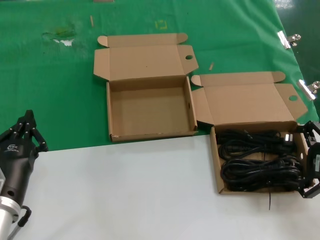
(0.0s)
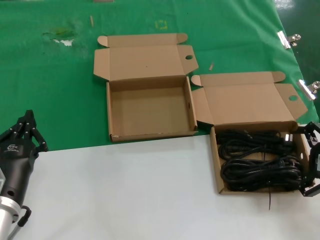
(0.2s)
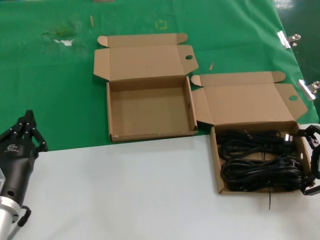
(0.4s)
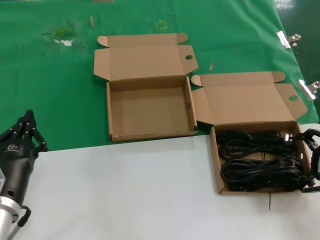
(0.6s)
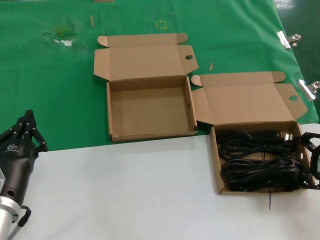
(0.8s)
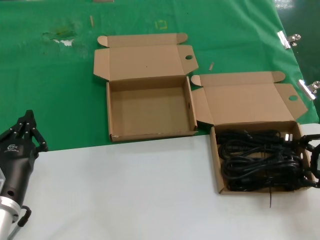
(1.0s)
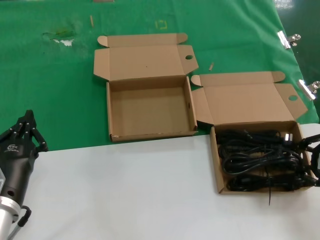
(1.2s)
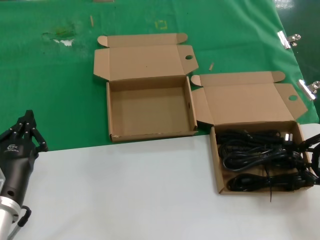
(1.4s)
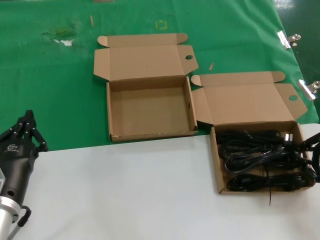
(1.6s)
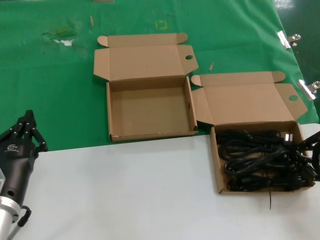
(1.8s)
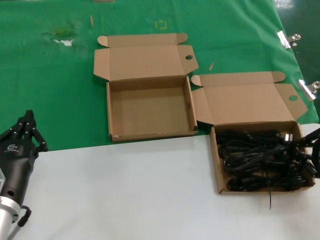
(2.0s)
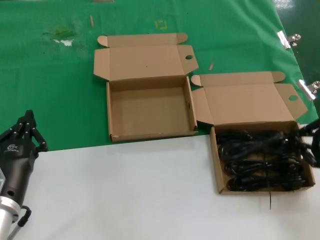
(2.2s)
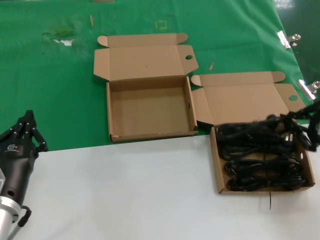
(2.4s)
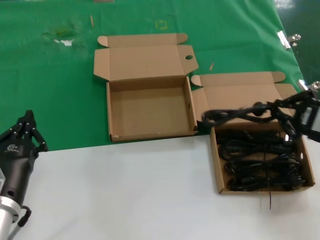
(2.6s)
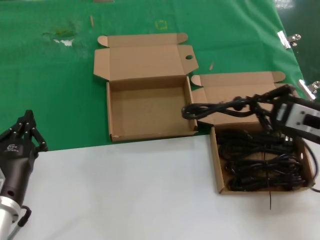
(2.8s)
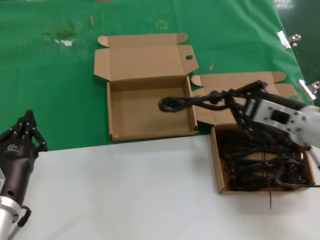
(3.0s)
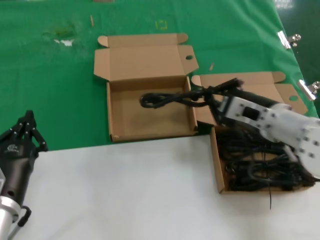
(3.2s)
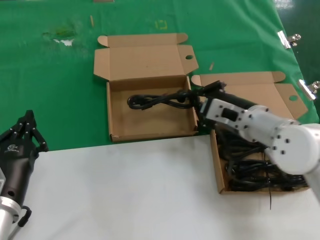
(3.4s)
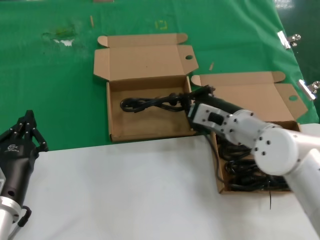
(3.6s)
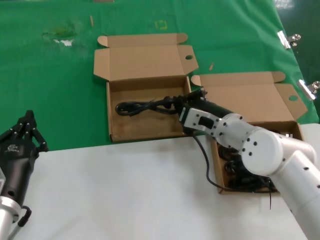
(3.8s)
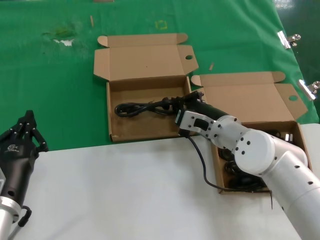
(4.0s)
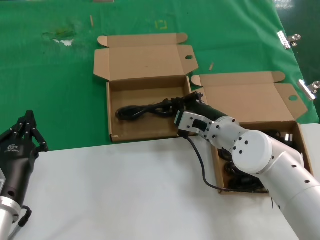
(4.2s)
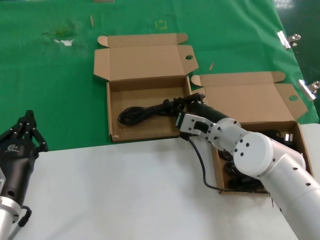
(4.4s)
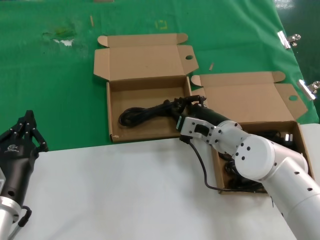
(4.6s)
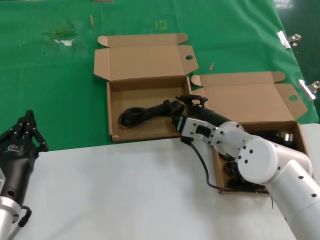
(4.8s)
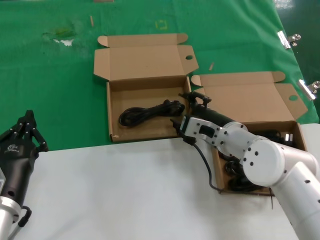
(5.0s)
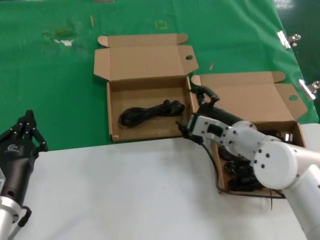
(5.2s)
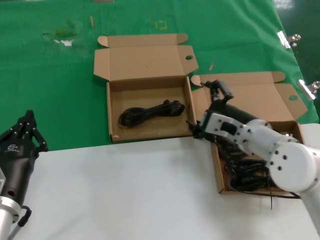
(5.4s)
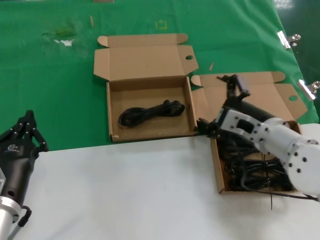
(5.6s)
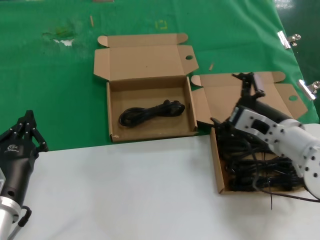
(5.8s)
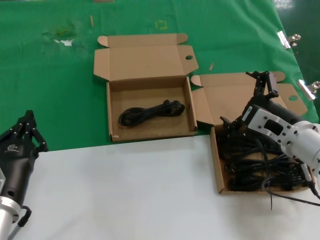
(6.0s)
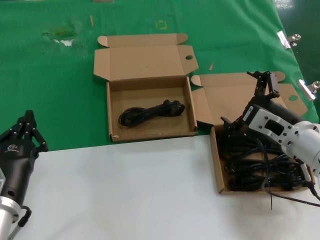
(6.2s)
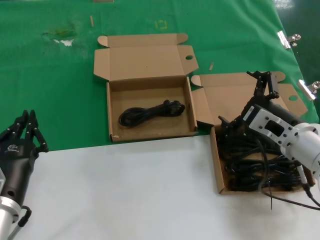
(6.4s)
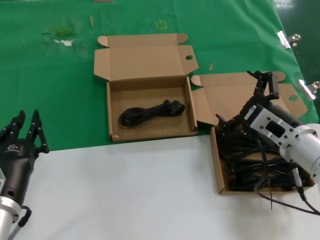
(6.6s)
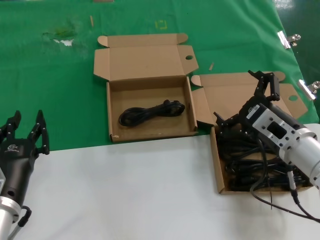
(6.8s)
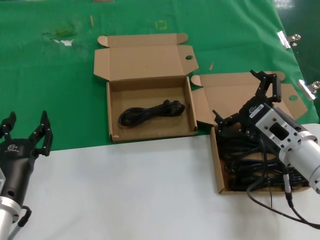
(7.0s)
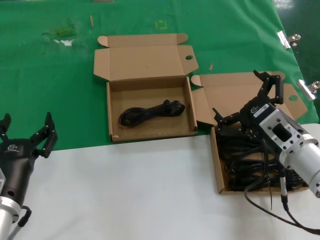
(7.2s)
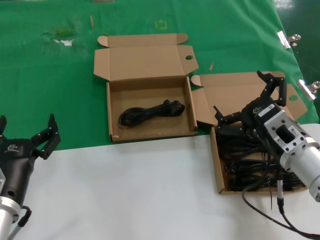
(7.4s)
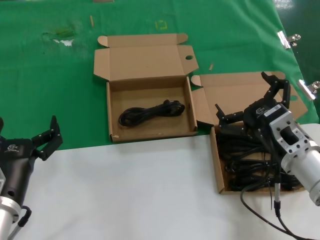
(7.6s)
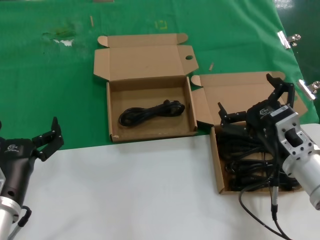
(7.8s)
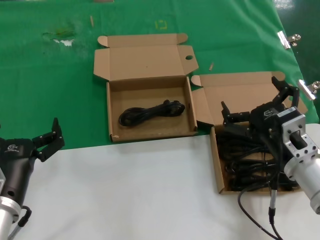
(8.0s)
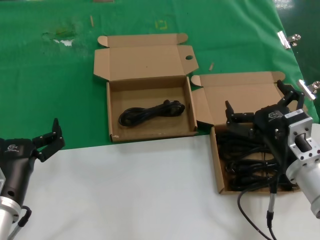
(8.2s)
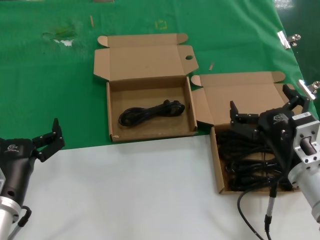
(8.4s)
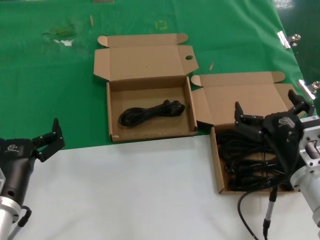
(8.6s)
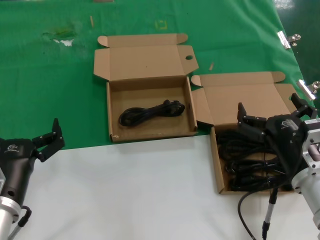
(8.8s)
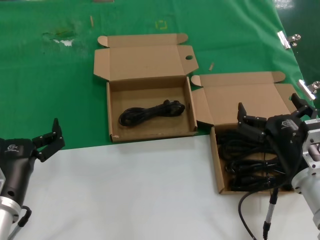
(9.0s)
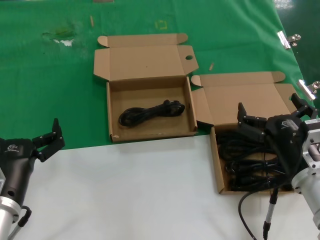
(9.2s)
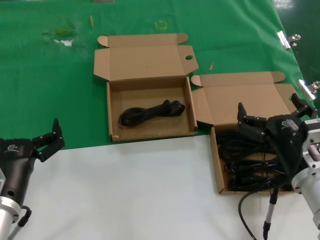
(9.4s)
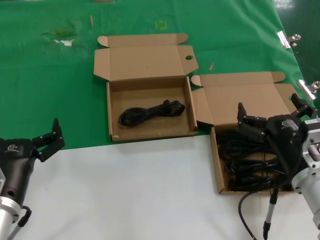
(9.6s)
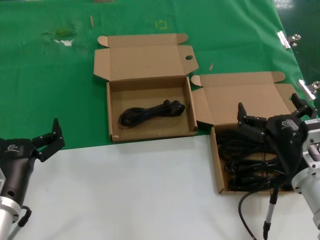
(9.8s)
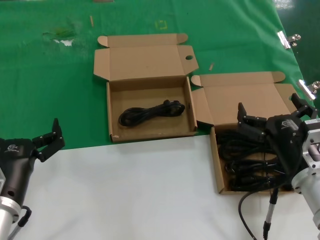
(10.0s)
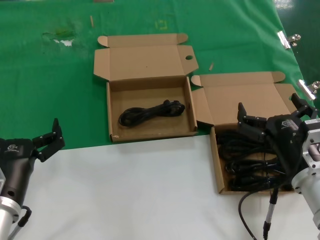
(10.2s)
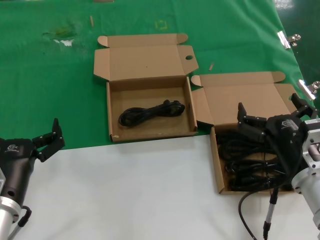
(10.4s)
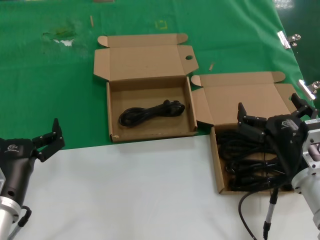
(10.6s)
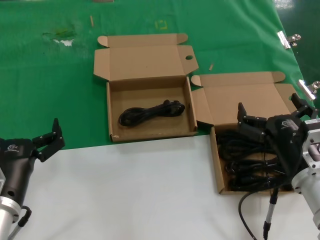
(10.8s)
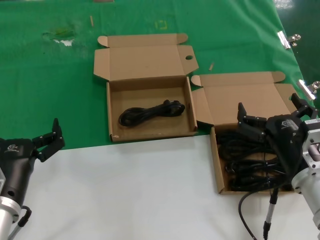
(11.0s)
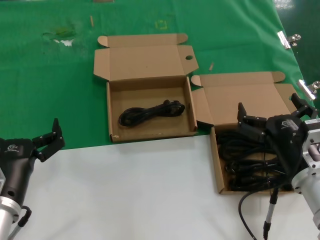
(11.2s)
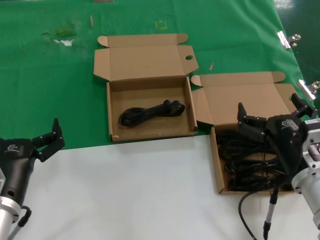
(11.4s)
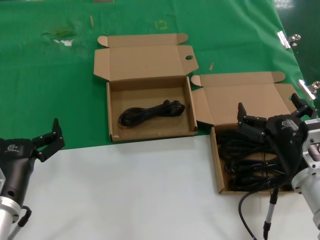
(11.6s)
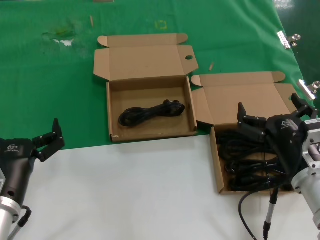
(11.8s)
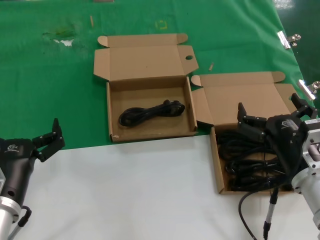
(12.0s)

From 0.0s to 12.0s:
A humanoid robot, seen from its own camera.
Task of the whole recording: take the parts from the box containing them and put them into an empty box.
Step, from 1.6s to 4.6s: Place the data cable in the another box.
From 0.0s to 1.6s: The two hands keep their place.
From 1.6s to 3.0s: The right hand shifts about 15 cm to the left and forward.
From 3.0s to 4.4s: The right hand shifts about 20 cm to the left, downward and forward.
From 4.4s to 6.0s: The right hand goes some 15 cm to the right, backward and upward.
From 9.0s to 12.0s: The two hands keep their place.

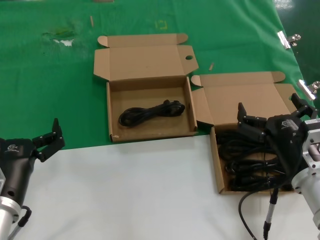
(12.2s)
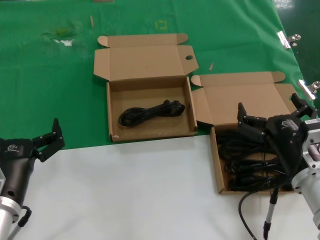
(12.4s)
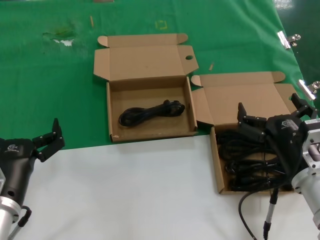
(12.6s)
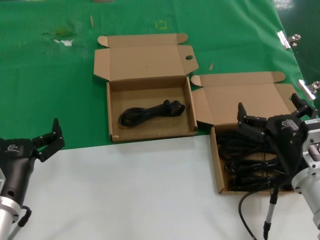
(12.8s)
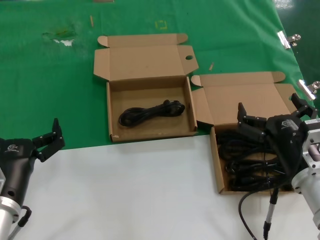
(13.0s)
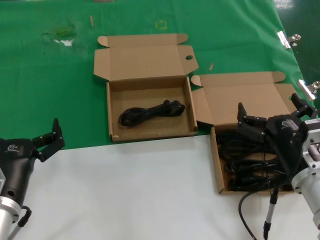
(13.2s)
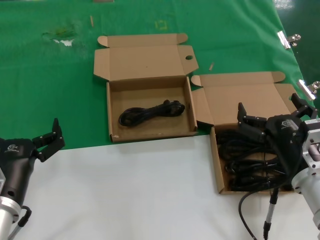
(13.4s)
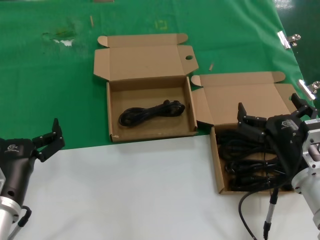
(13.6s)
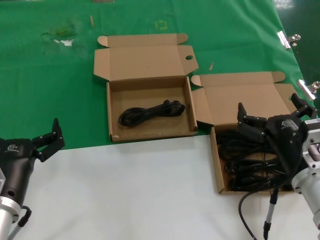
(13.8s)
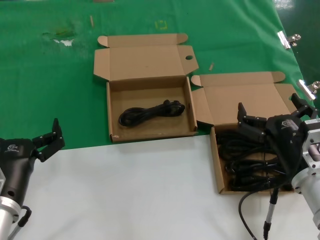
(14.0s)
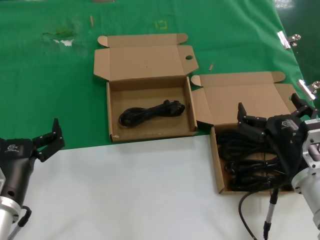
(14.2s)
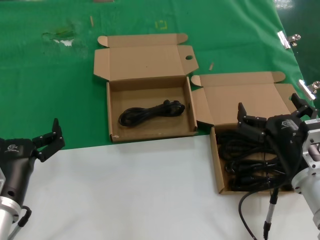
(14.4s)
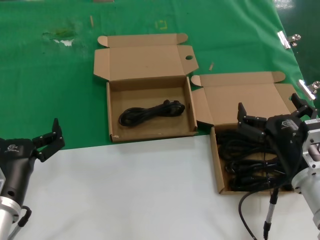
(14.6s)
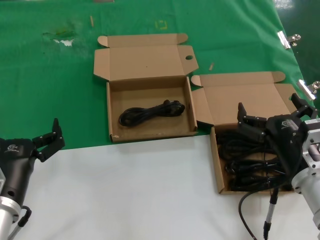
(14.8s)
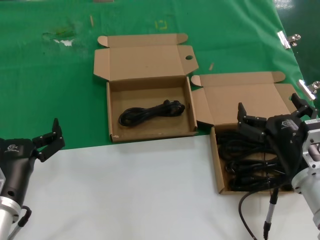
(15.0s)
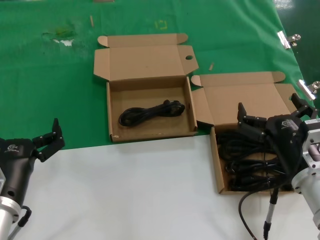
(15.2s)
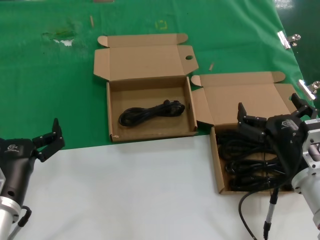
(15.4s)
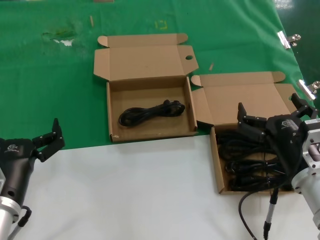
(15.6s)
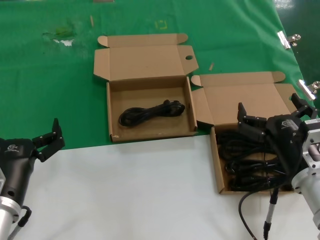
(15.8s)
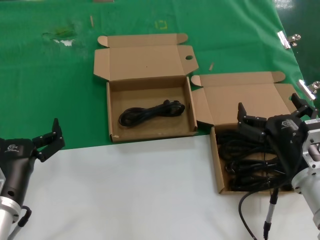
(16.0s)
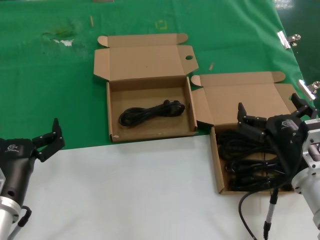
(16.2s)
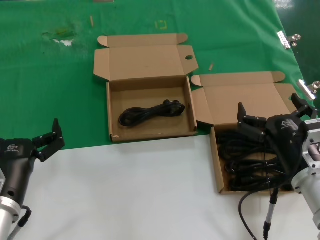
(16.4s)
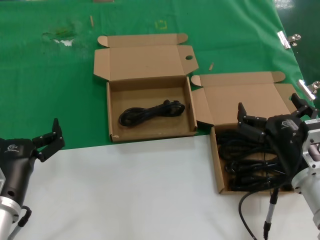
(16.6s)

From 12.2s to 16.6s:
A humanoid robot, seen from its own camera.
Task of the whole recording: take the parts from the box containing them and put them into an empty box.
From 12.2s to 16.6s: The two hands keep their place.

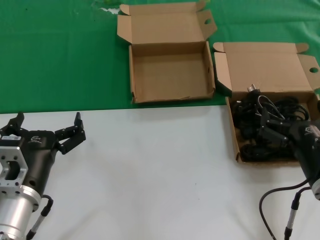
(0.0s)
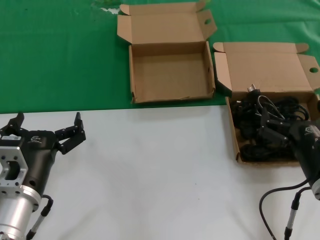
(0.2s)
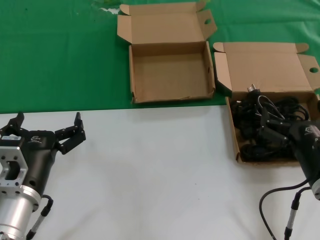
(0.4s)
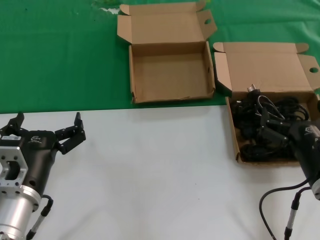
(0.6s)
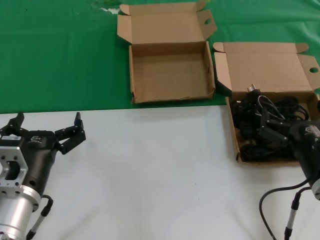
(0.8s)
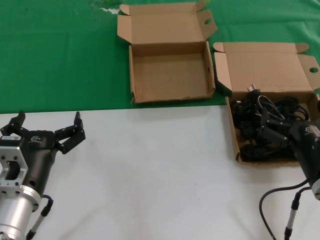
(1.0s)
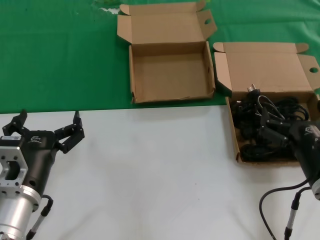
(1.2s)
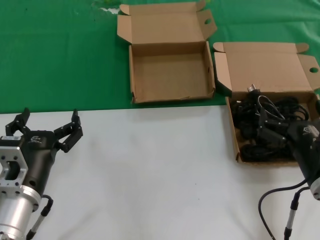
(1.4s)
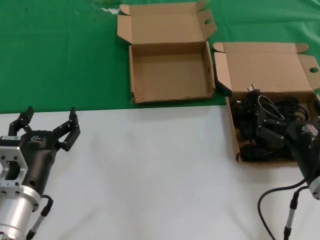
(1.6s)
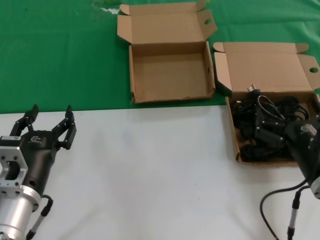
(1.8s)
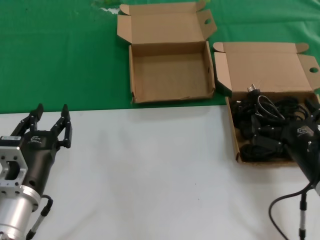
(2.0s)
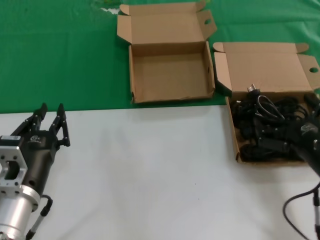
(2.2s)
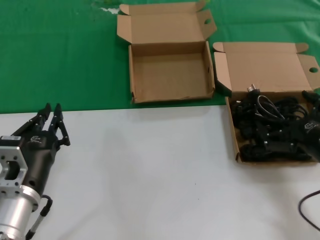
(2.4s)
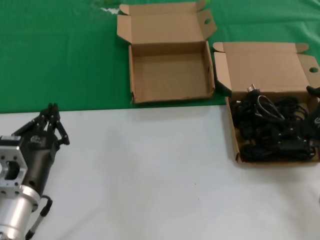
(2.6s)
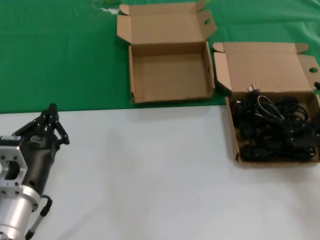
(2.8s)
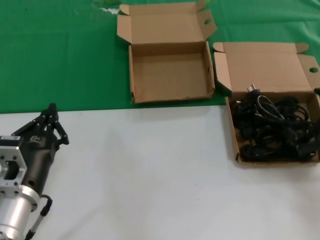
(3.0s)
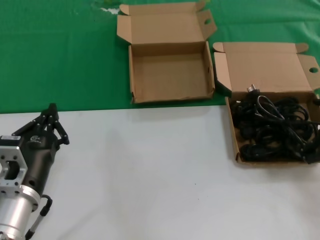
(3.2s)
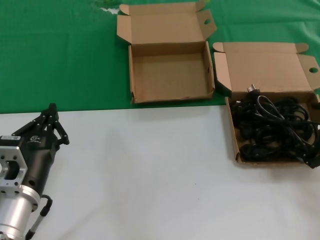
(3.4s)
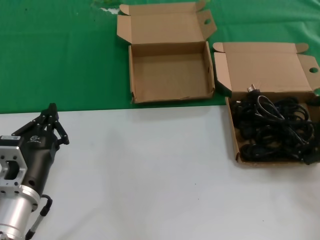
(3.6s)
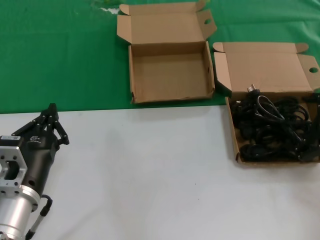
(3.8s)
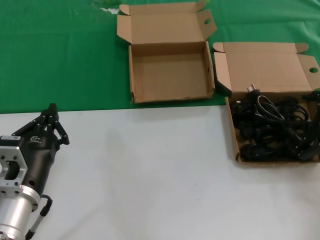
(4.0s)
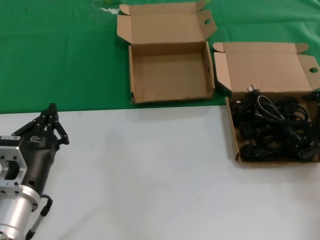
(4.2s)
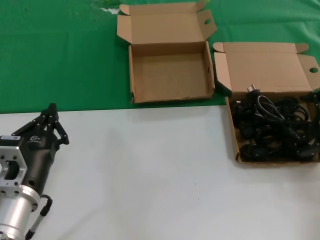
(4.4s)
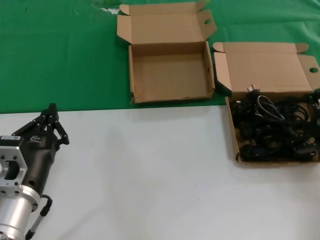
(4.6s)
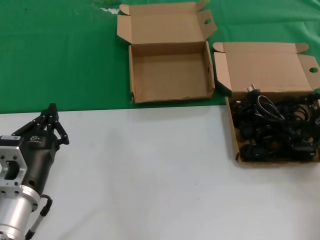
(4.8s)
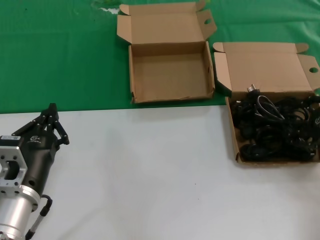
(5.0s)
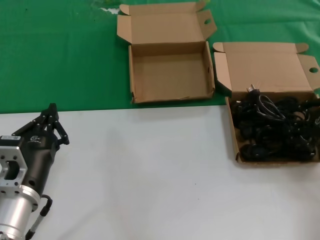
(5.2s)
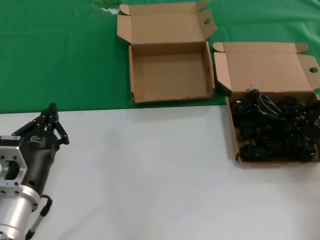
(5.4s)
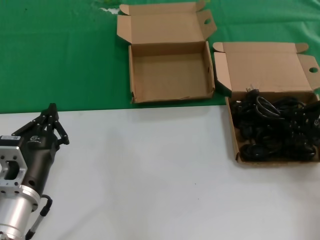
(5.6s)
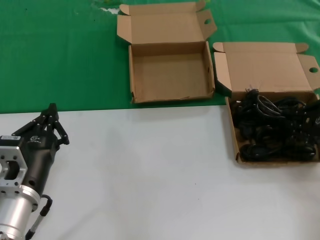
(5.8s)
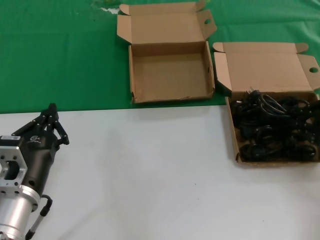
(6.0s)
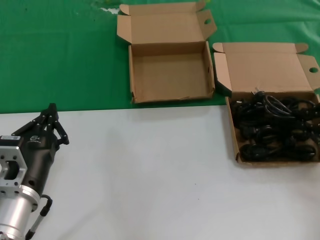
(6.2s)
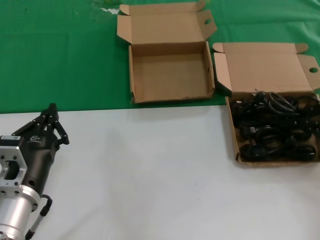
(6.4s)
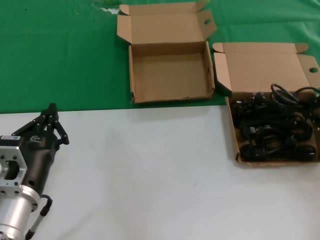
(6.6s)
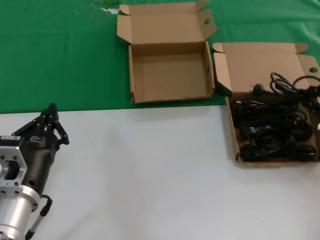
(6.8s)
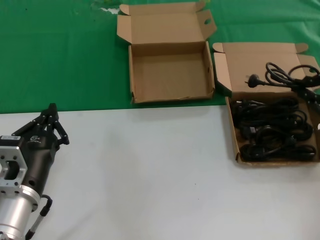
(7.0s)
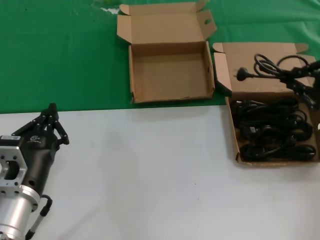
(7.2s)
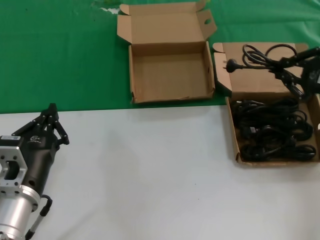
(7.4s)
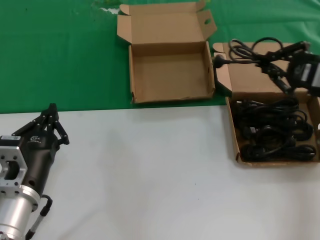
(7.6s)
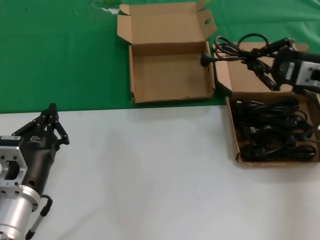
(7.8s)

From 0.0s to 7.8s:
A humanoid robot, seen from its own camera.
Task of the whole recording: take the parts from the box containing them and put them into an empty box.
Step, from 0.0s to 6.0s: Grasp the data cable.
From 0.0s to 1.6s: Both hands stay put.
From 1.6s to 3.2s: The right hand shifts about 20 cm to the right and upward.
From 6.2s to 7.8s: The right hand goes about 10 cm to the left and forward.
